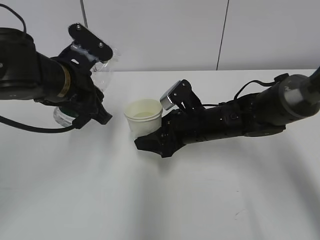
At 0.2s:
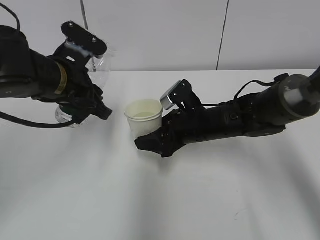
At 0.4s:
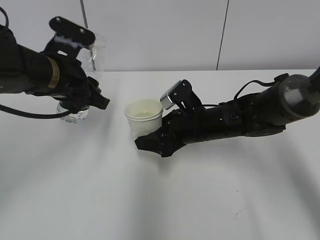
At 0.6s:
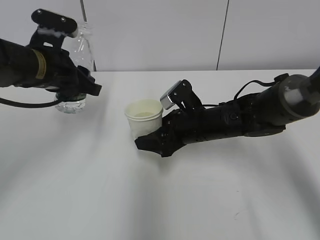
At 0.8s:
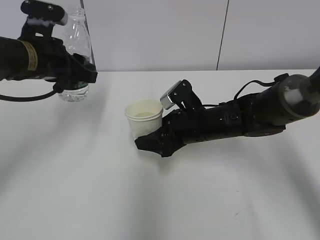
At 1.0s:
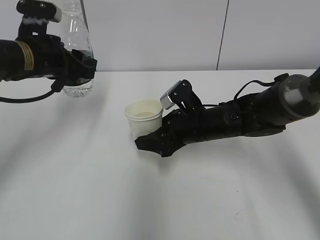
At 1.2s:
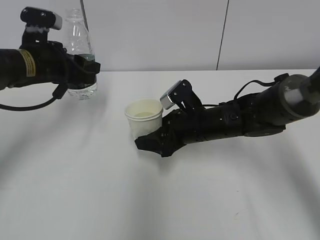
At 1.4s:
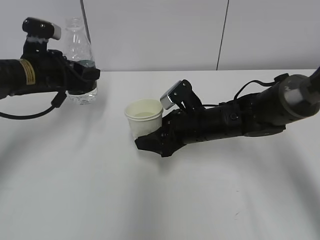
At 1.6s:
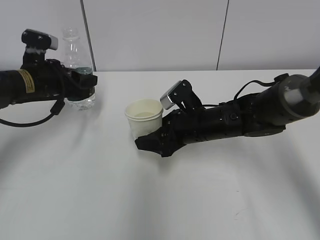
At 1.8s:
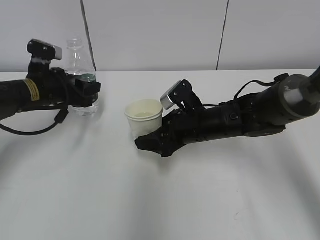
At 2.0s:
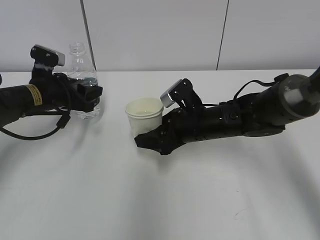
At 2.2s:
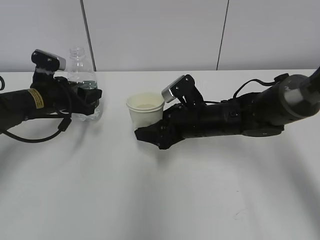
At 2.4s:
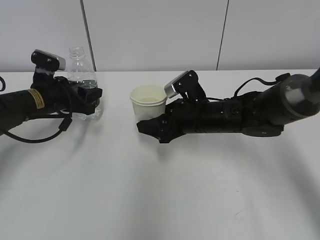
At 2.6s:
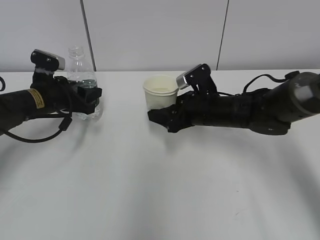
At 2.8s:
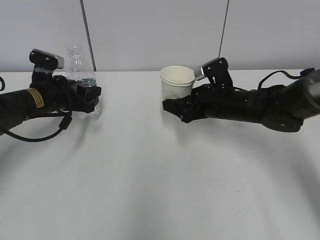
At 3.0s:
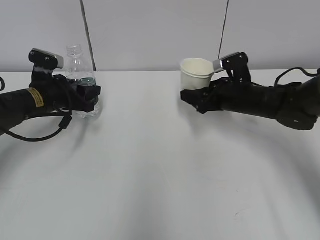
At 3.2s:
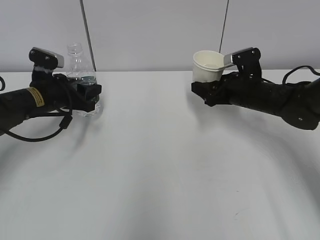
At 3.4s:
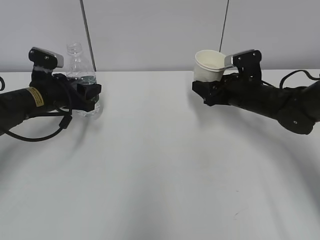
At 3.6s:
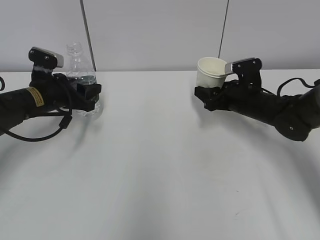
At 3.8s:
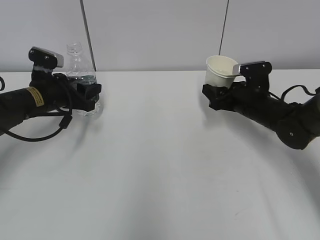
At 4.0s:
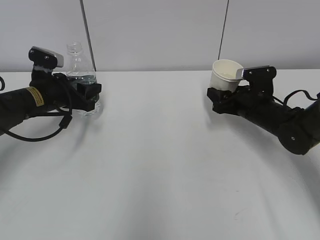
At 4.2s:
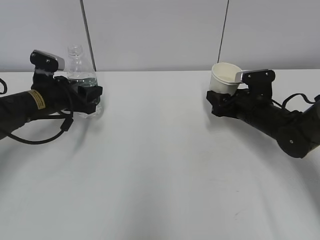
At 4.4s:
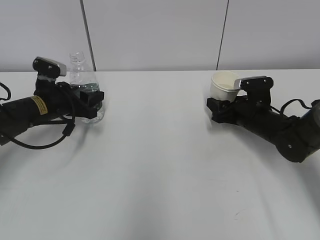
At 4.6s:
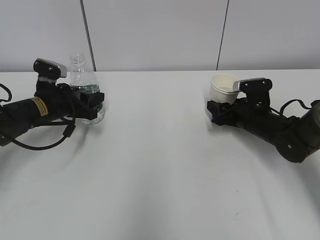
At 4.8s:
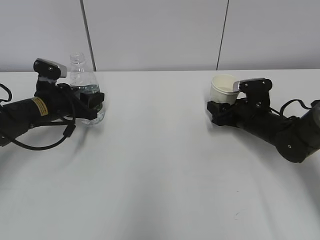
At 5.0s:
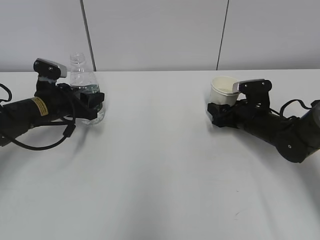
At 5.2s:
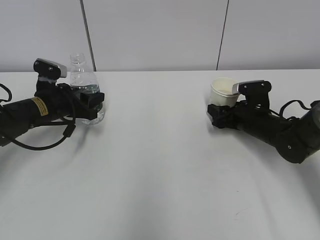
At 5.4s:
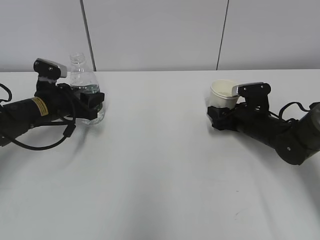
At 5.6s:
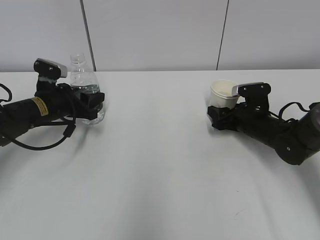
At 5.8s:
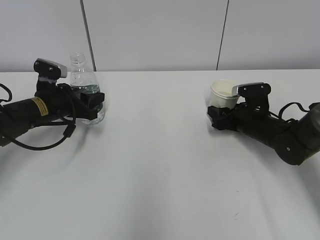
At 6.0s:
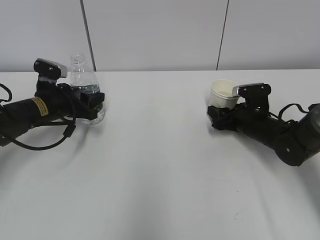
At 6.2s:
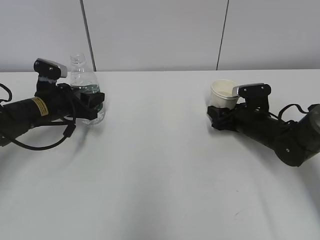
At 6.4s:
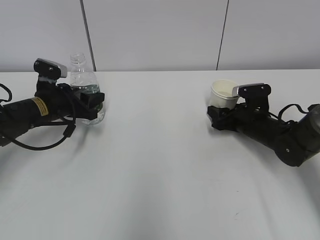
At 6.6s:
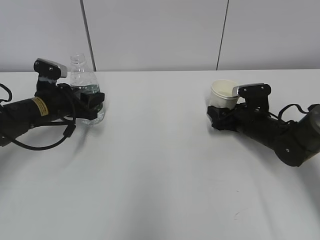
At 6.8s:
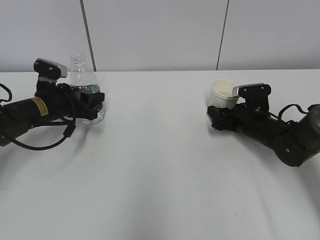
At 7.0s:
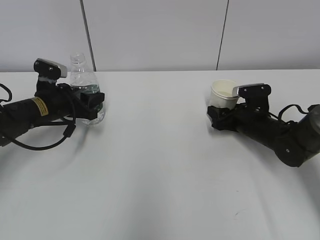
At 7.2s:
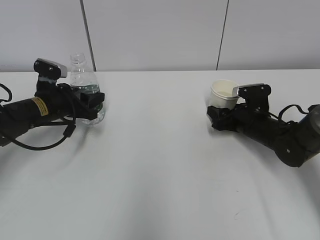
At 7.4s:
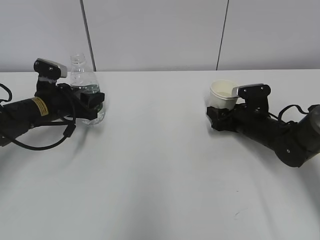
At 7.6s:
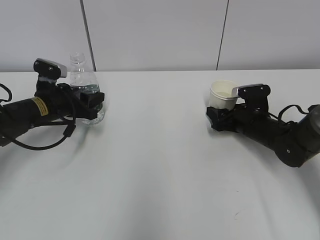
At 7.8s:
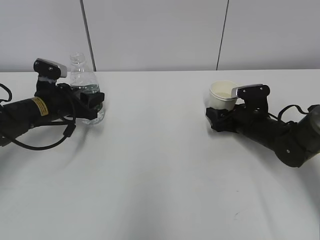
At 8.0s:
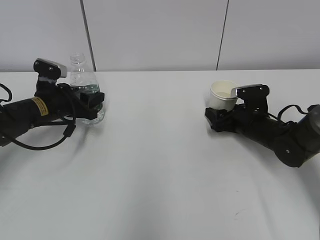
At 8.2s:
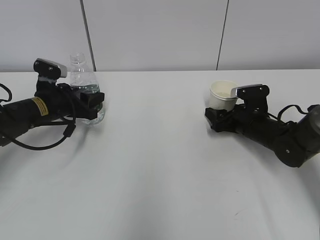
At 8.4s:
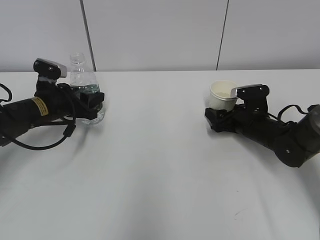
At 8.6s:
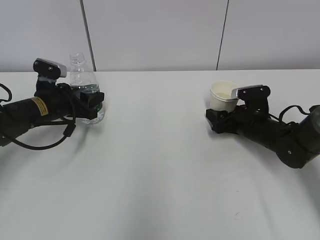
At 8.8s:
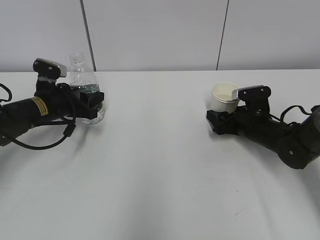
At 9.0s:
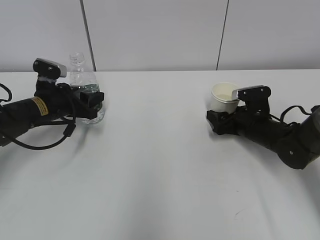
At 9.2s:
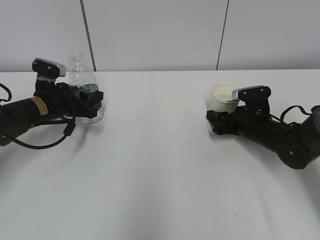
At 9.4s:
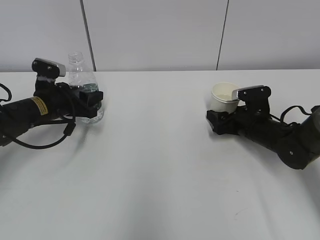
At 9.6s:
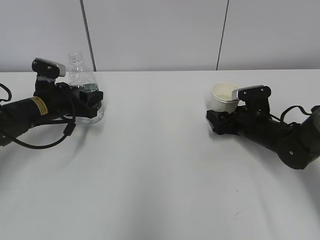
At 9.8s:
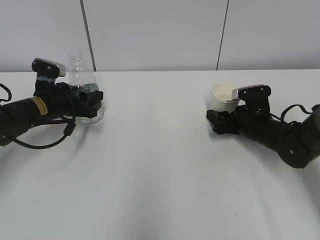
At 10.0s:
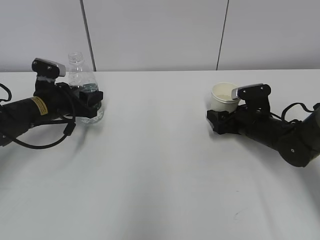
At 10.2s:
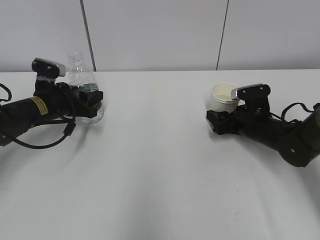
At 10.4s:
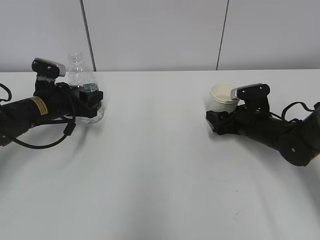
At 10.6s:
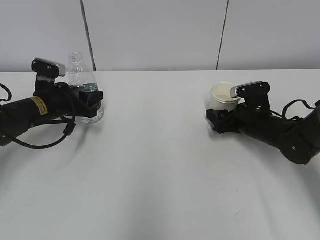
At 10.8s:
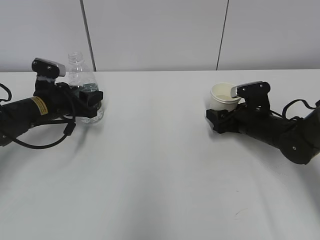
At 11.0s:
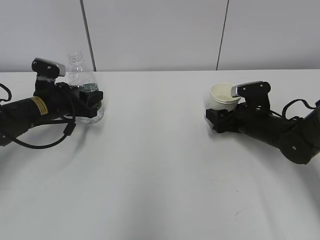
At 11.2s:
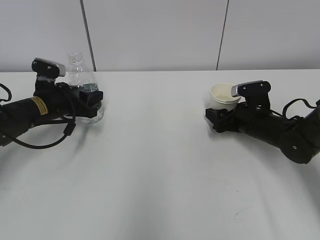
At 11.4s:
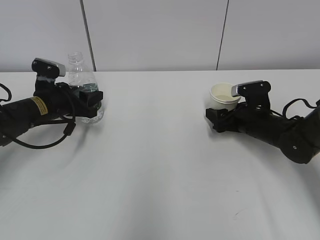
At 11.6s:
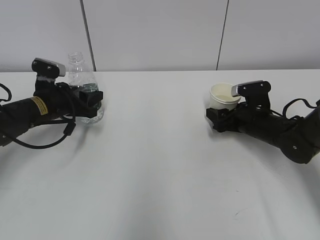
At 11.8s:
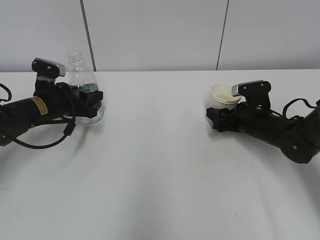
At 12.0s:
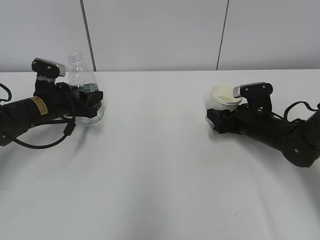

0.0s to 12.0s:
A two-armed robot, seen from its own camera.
Step, 0.0s to 6.8s: Place the paper cup with the right hand.
0.0s to 1.6s: The left gripper travels to the left, forward and downward by some 15 cm.
1.6s to 3.0s: The right gripper is displaced to the right by roughly 10 cm.
3.0s to 4.4s: The right gripper moves downward, approximately 5 cm.
4.4s to 6.0s: There are only small adjustments of the grippers.
6.0s to 10.4s: Neither gripper changes place.
10.4s to 12.0s: Both grippers stay put.

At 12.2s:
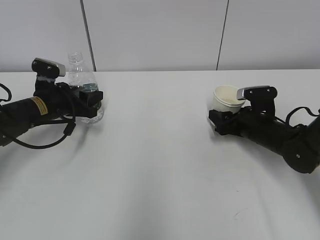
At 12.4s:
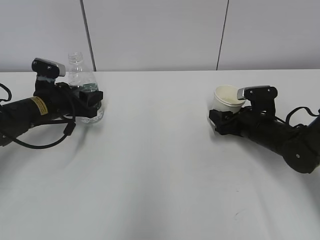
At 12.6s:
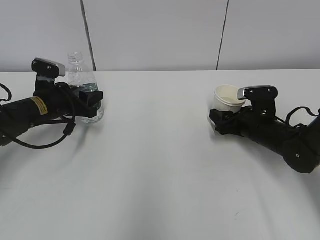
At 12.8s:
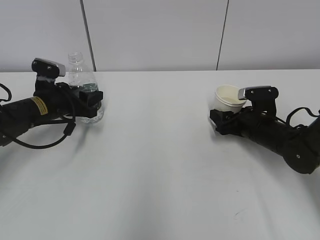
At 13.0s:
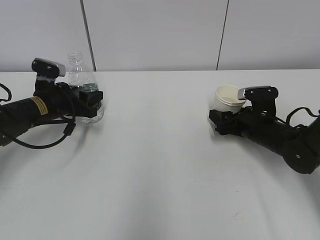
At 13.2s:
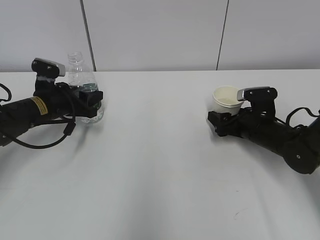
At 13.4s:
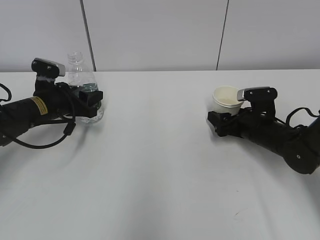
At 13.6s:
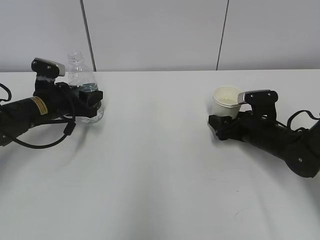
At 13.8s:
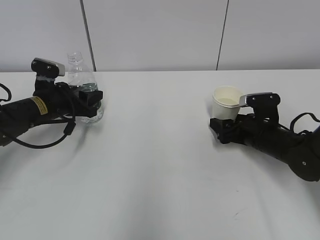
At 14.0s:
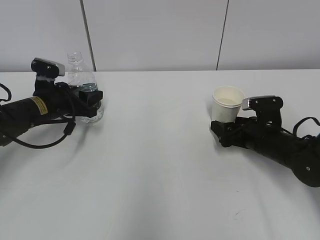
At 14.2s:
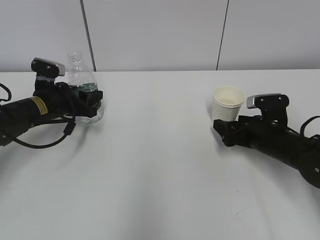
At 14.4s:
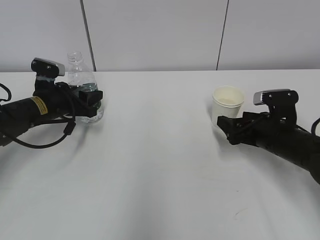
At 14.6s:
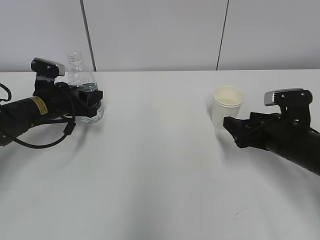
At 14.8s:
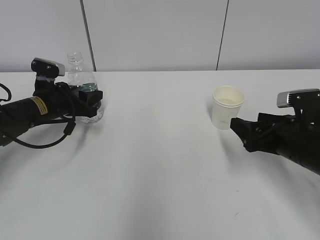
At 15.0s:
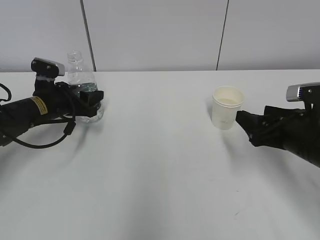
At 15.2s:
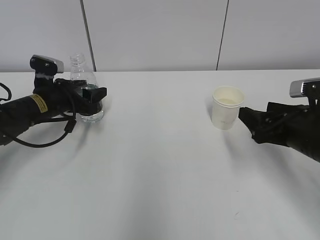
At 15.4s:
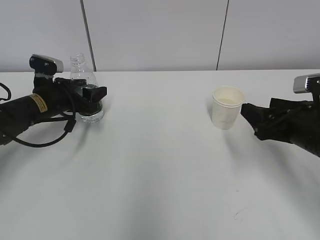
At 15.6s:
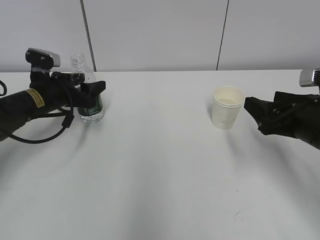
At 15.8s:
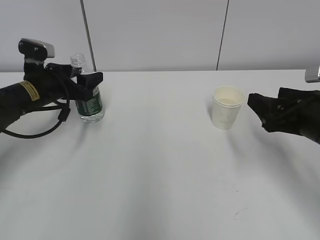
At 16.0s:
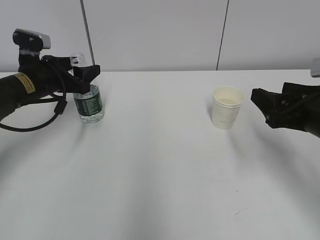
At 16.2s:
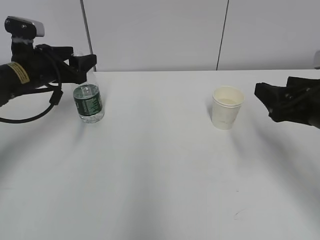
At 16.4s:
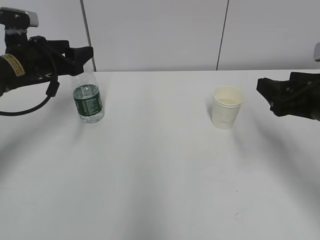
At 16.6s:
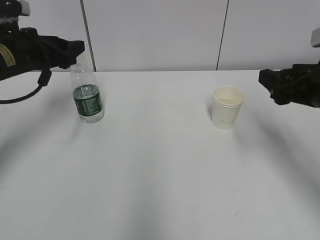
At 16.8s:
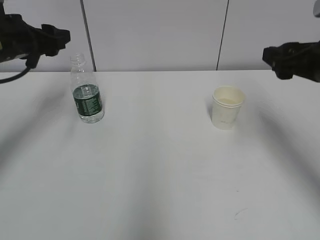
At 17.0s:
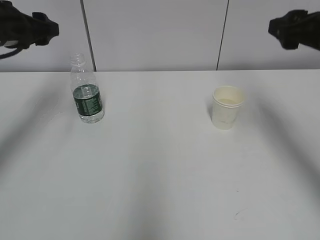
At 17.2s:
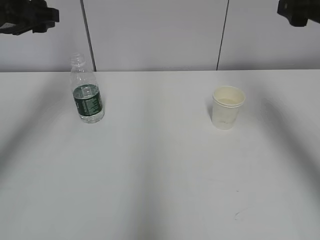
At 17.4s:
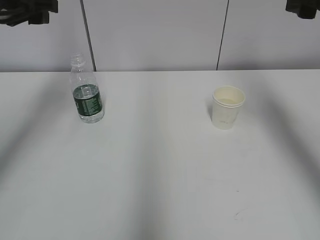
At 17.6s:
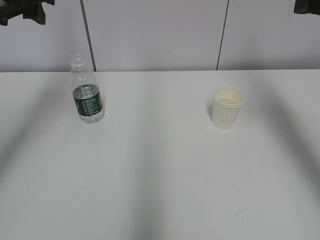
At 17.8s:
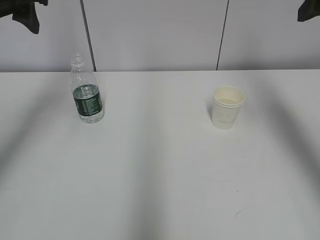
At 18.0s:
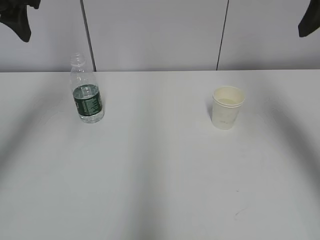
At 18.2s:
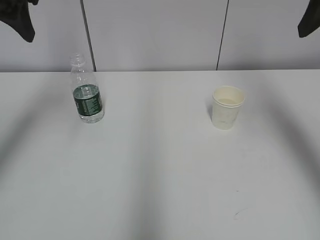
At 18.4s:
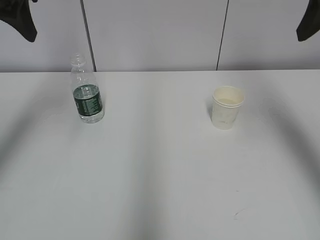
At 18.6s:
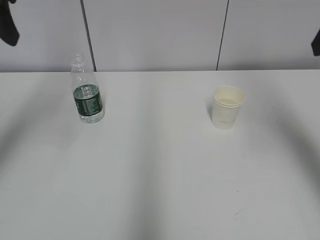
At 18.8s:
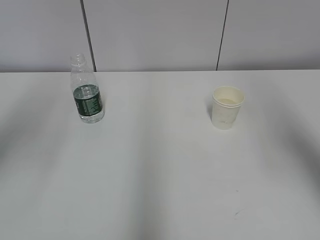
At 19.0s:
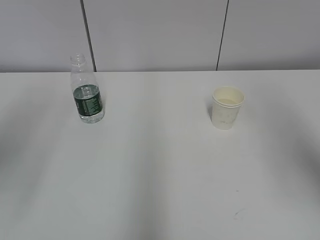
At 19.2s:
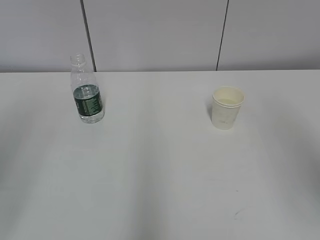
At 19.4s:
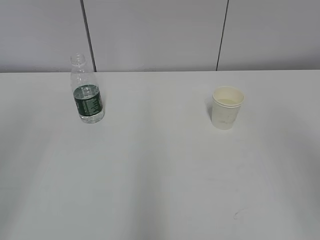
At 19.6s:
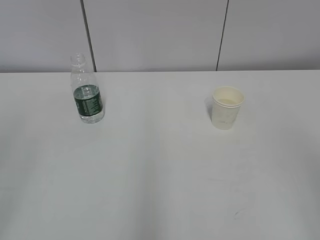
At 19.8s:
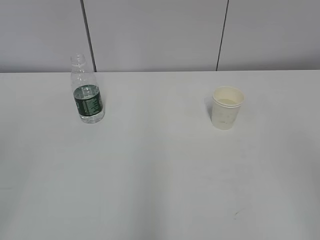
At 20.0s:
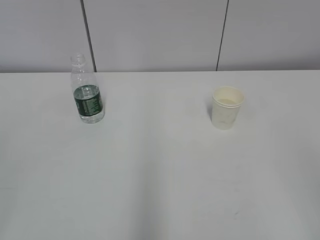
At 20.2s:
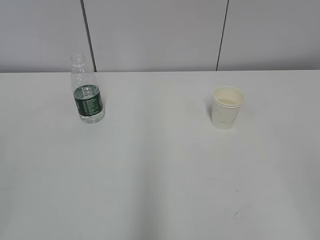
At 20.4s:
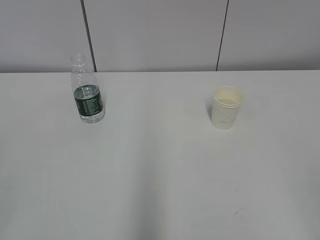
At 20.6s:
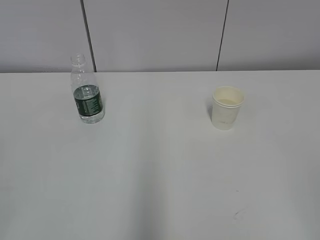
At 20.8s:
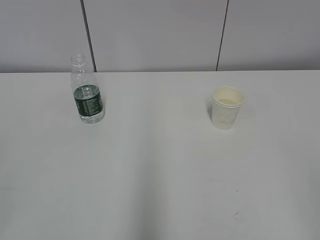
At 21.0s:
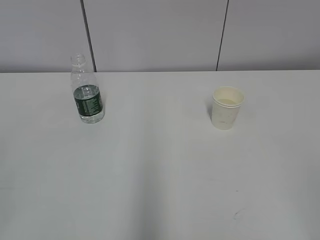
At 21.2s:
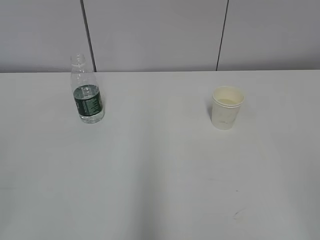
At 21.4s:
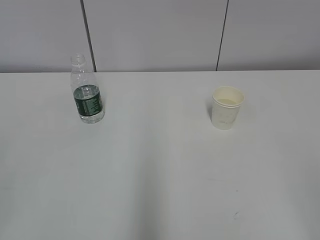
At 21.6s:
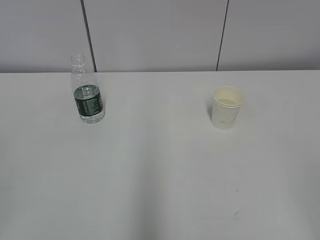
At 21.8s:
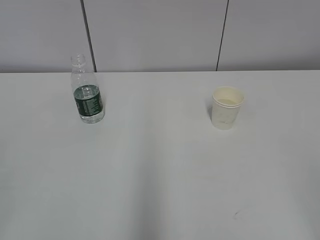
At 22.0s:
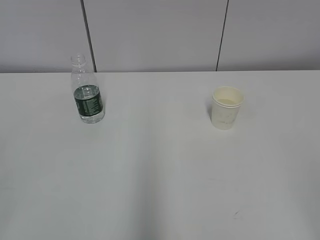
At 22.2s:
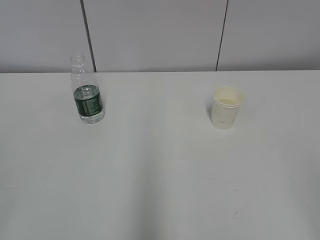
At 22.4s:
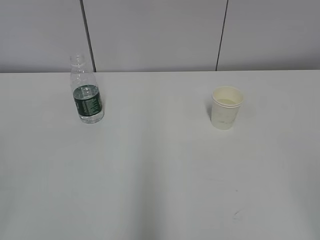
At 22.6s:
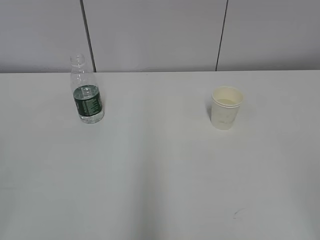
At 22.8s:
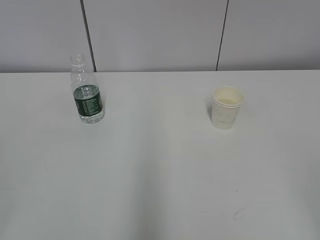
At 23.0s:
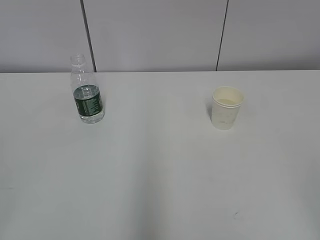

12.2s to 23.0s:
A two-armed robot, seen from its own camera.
12.2s to 13.8s: The grippers make only small movements.
13.8s to 15.2s: The right gripper goes about 15 cm backward and upward. The left gripper opens.
15.2s to 16.8s: Both grippers travel together upward, approximately 15 cm.
16.8s to 18.4s: The left gripper shifts about 15 cm upward and backward; the right gripper shifts some 15 cm upward.
18.4s to 20.0s: Both grippers travel together backward, roughly 30 cm.
